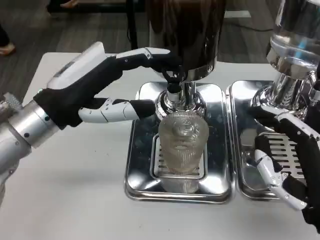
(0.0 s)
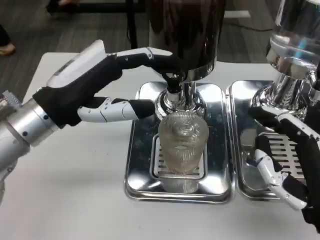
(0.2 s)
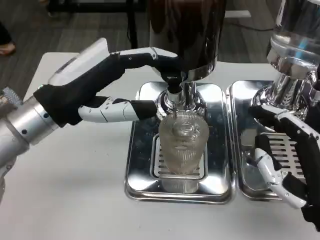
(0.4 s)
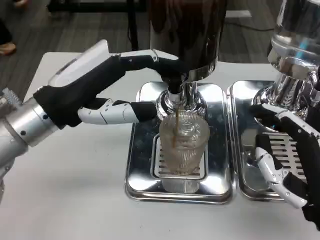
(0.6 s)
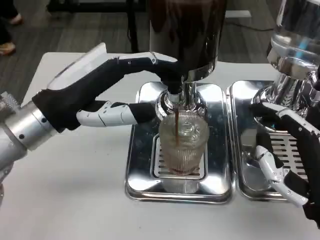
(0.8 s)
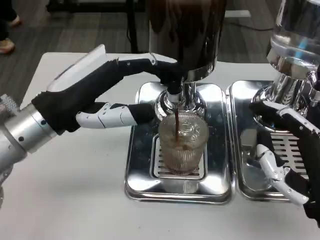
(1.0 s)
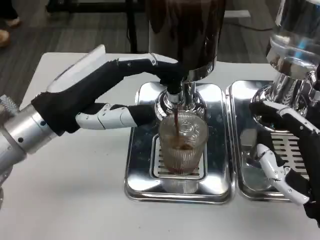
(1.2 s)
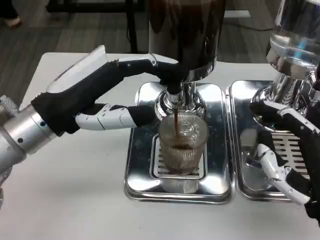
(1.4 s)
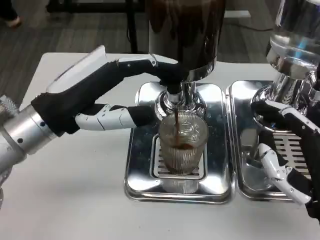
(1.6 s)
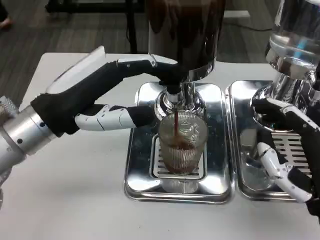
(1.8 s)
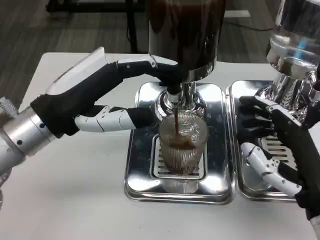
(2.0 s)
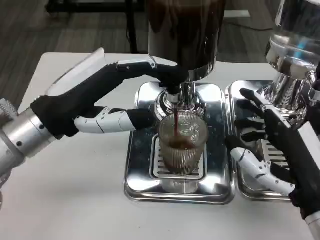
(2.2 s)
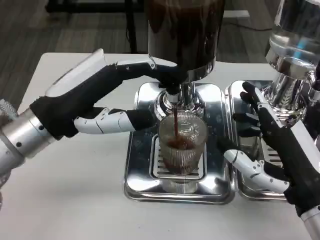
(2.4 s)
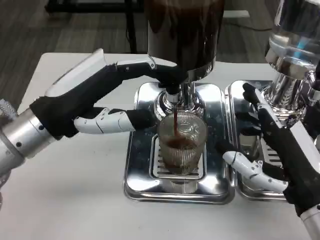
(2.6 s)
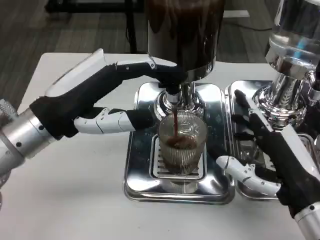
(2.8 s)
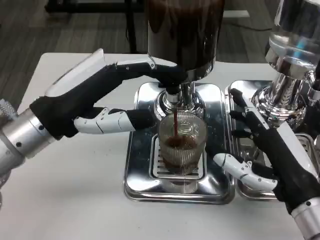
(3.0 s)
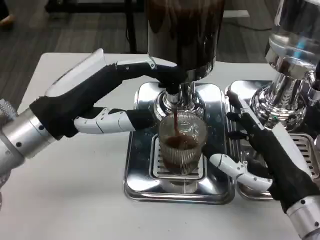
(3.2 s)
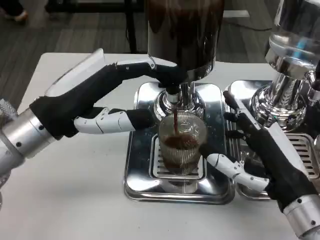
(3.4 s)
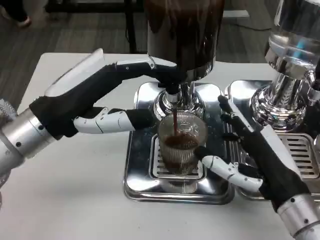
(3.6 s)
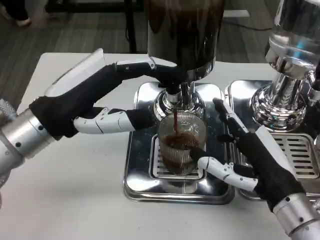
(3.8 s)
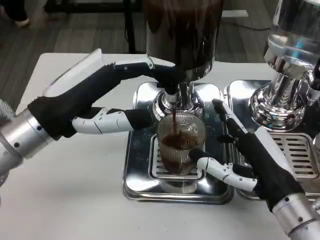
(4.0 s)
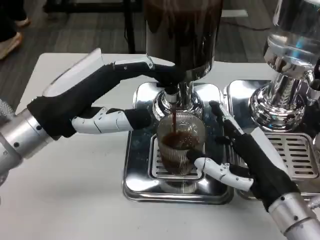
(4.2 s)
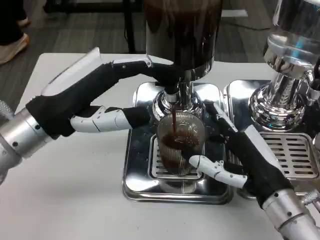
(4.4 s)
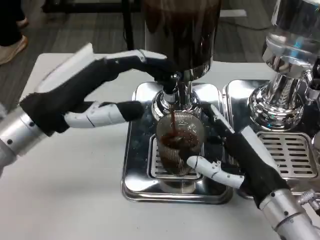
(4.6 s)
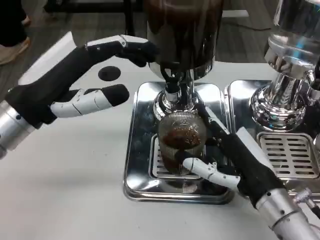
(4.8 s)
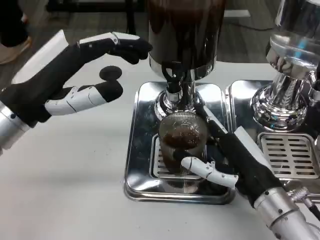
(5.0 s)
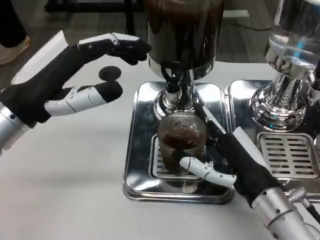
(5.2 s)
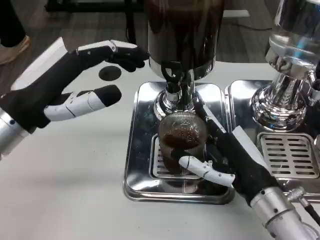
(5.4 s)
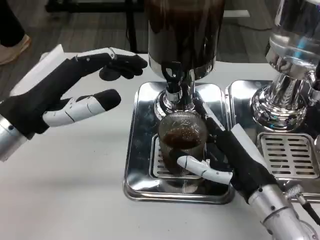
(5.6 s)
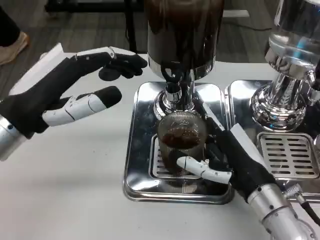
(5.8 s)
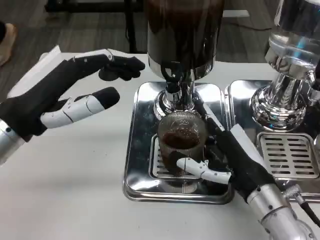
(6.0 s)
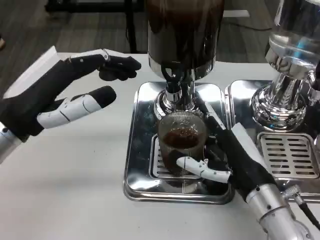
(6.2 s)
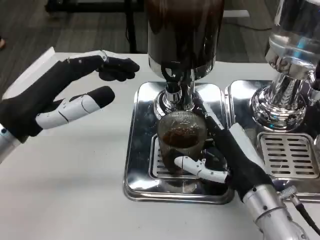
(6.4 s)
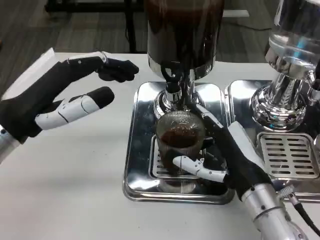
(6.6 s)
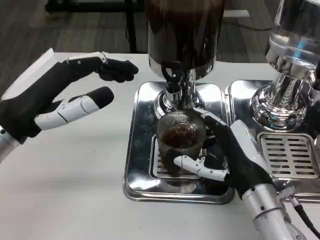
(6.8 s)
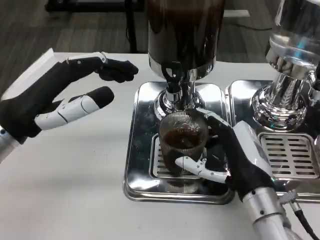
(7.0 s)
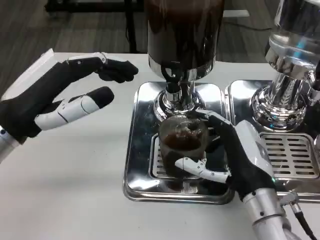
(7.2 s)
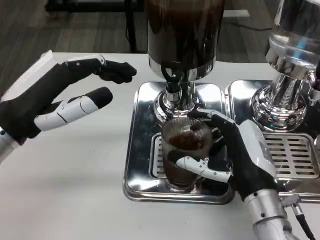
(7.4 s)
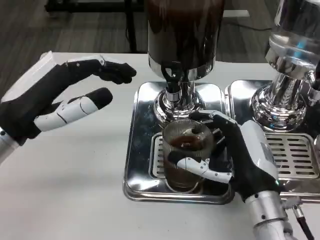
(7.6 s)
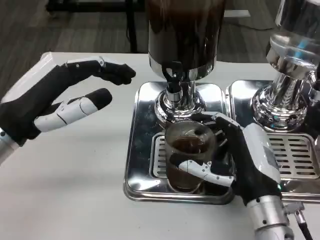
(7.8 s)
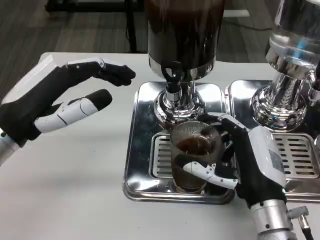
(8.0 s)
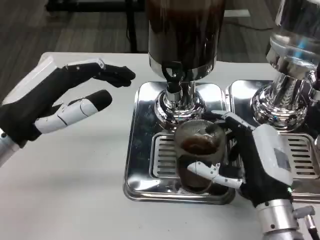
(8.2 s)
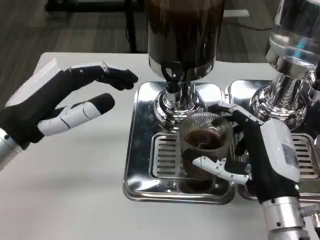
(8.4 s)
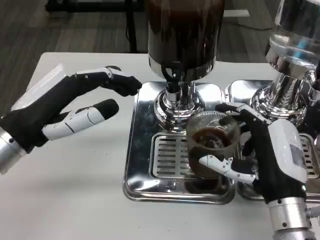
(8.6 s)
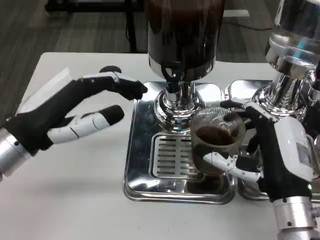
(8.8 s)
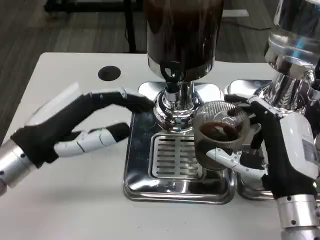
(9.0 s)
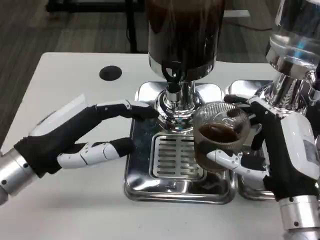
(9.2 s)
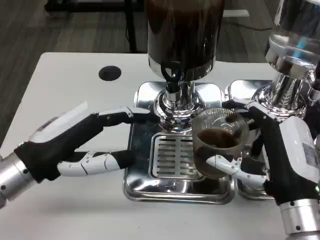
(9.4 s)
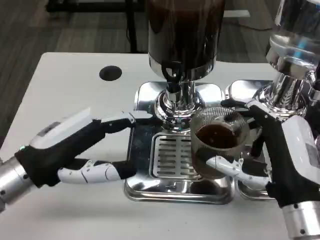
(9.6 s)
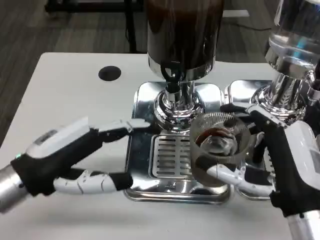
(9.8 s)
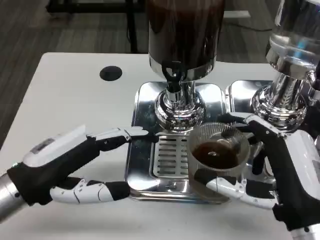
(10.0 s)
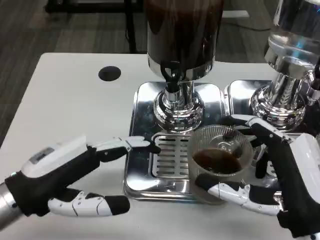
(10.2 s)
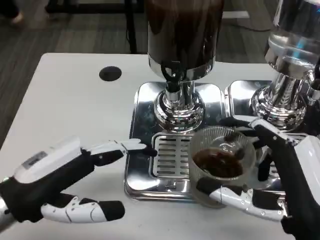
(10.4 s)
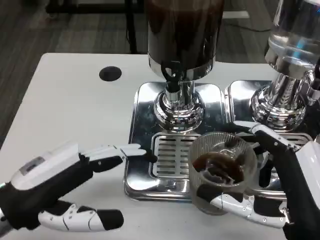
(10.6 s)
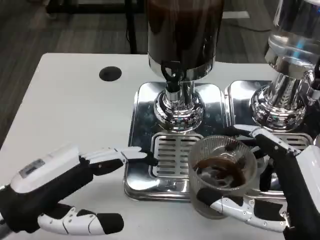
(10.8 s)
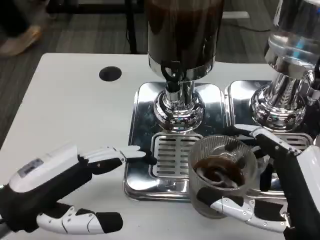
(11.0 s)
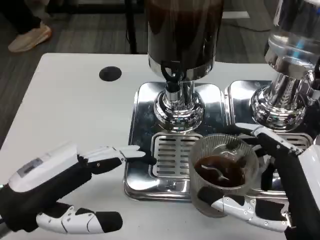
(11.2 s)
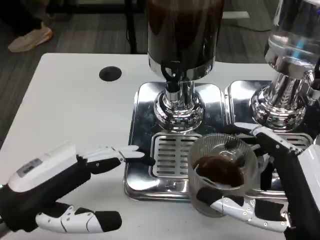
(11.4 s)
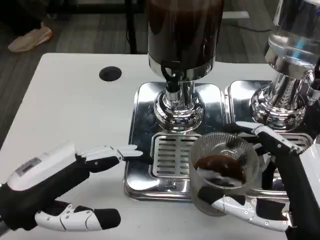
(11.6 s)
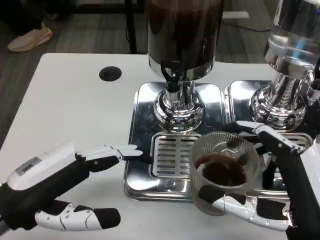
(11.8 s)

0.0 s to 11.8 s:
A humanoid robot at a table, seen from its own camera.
Task of the whole recording: Grasp the cup under the faucet to collect the drink, then remove the cup.
0.0 to 1.4 s: The hands stay close to where they were, moving slightly.
6.0 to 7.4 s: There are only small adjustments of the hands.
8.8 to 10.4 s: Both hands move backward, approximately 5 cm.
10.4 to 11.8 s: Neither hand changes place.

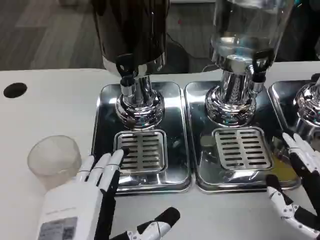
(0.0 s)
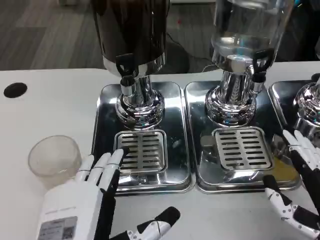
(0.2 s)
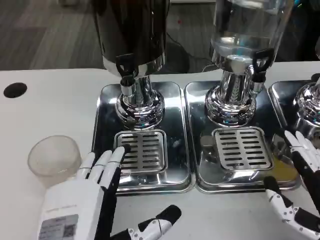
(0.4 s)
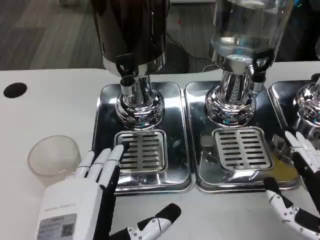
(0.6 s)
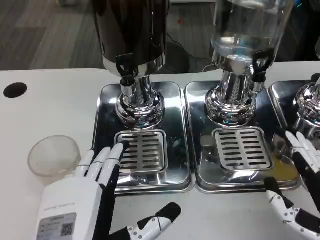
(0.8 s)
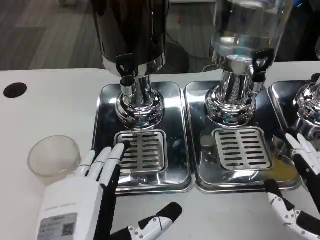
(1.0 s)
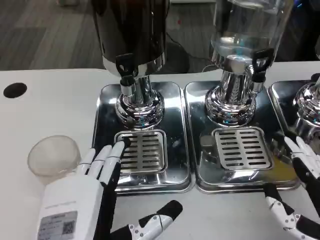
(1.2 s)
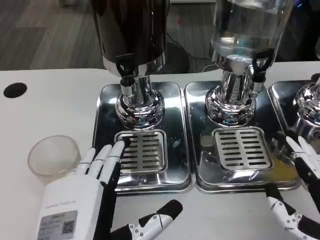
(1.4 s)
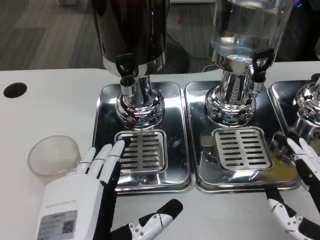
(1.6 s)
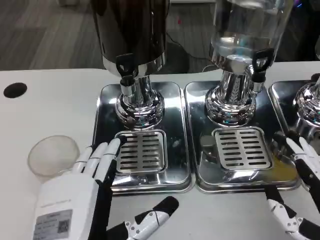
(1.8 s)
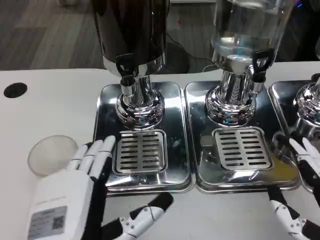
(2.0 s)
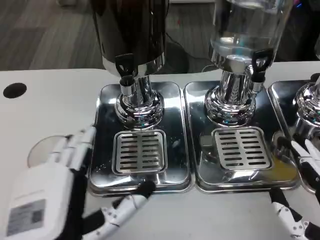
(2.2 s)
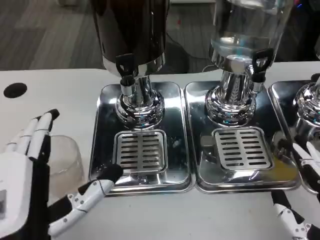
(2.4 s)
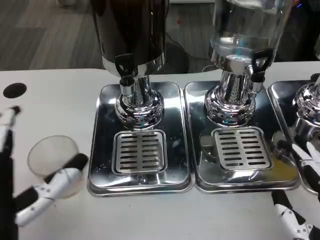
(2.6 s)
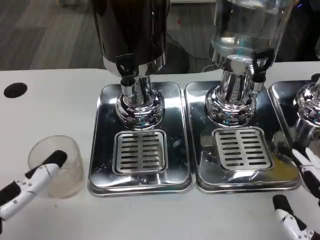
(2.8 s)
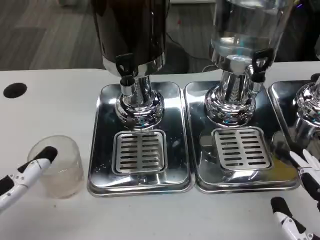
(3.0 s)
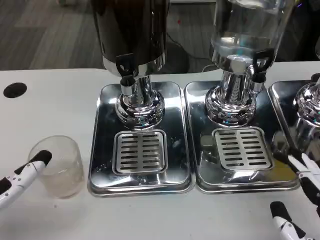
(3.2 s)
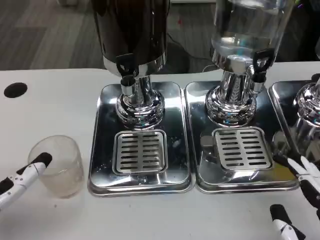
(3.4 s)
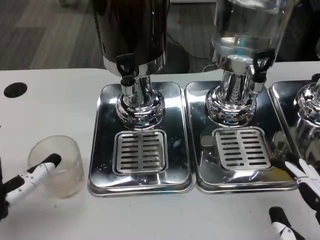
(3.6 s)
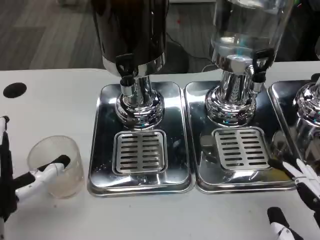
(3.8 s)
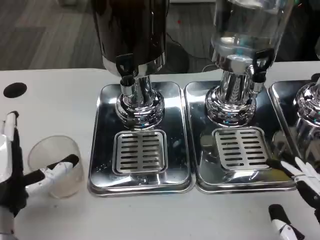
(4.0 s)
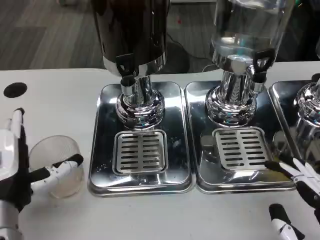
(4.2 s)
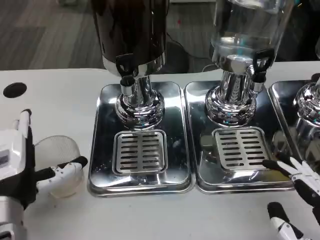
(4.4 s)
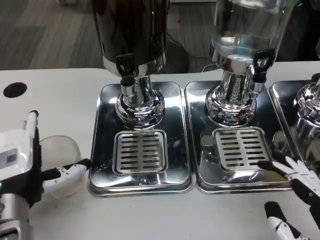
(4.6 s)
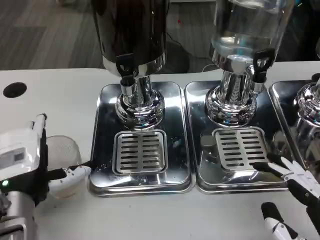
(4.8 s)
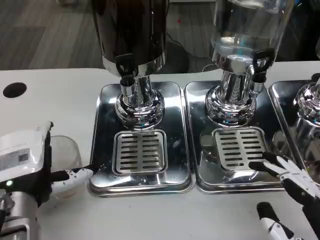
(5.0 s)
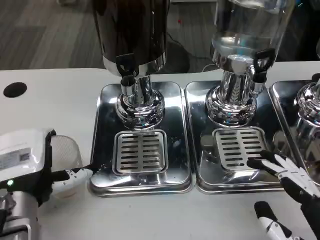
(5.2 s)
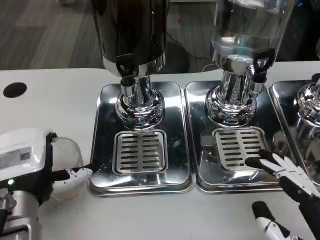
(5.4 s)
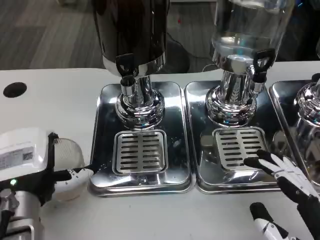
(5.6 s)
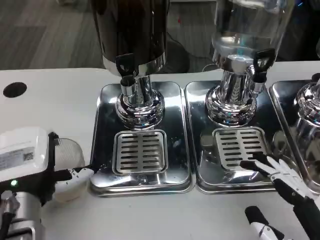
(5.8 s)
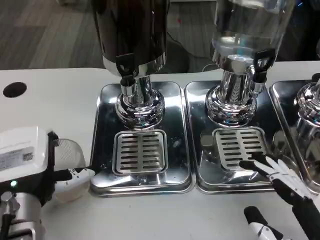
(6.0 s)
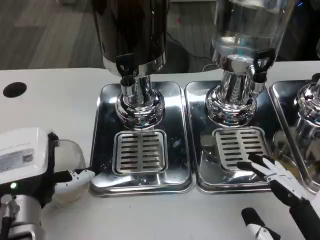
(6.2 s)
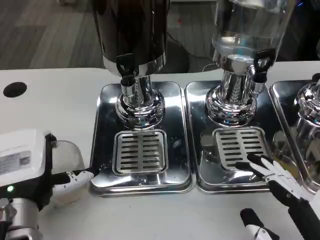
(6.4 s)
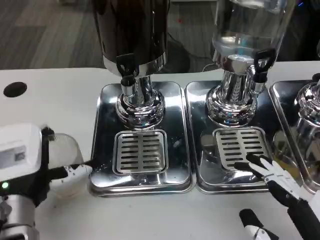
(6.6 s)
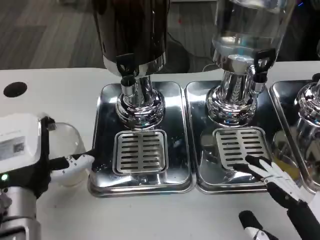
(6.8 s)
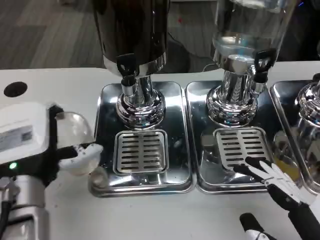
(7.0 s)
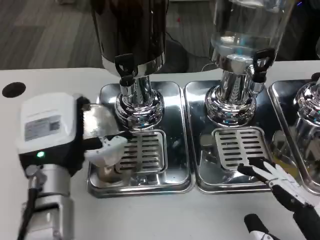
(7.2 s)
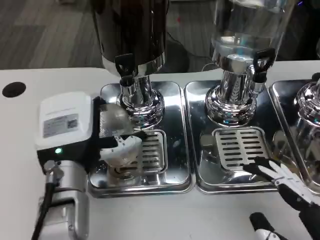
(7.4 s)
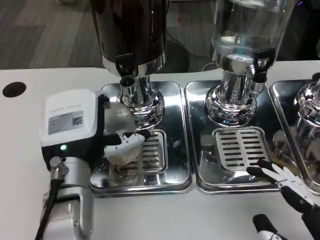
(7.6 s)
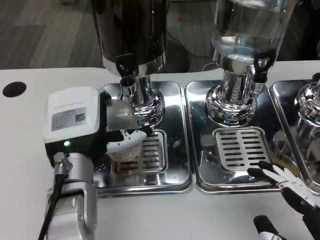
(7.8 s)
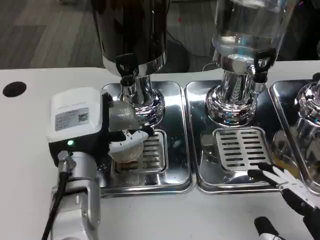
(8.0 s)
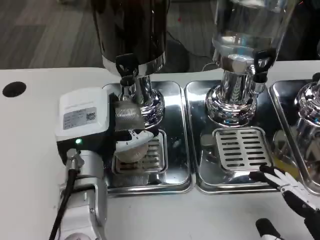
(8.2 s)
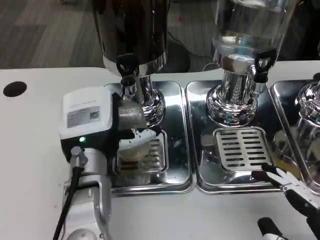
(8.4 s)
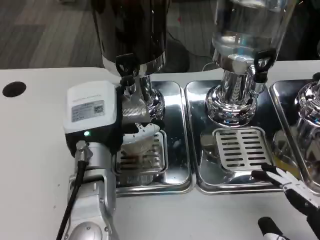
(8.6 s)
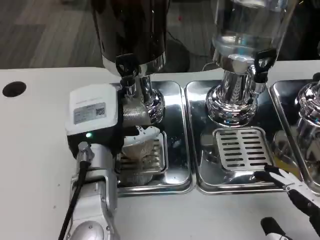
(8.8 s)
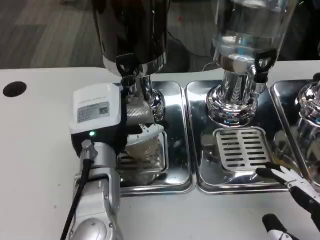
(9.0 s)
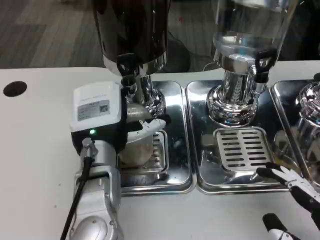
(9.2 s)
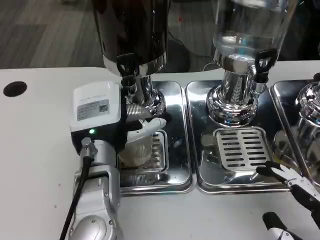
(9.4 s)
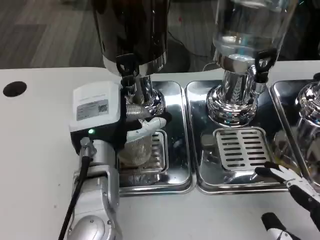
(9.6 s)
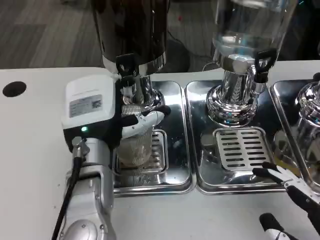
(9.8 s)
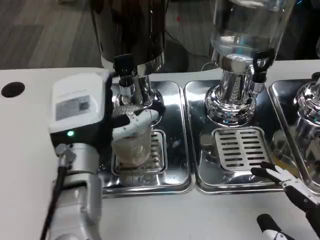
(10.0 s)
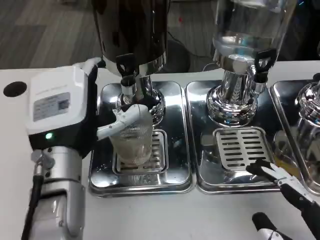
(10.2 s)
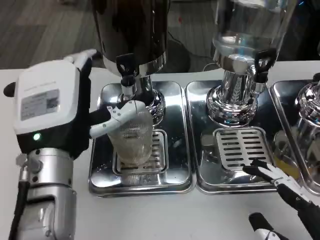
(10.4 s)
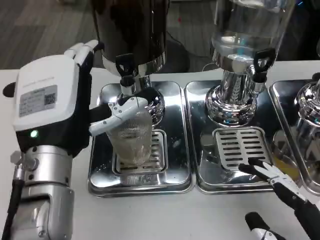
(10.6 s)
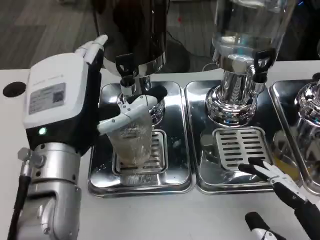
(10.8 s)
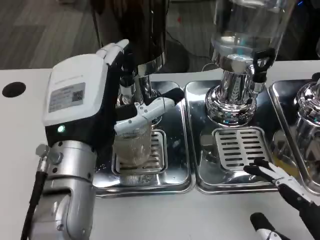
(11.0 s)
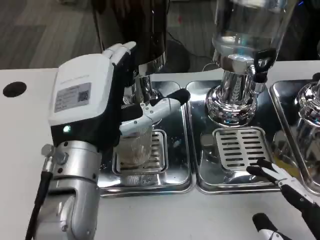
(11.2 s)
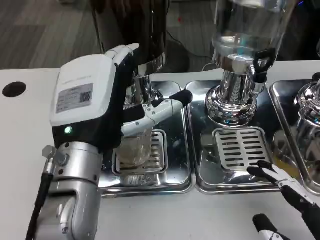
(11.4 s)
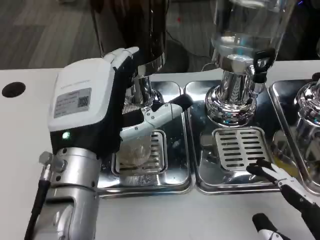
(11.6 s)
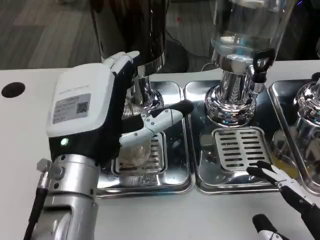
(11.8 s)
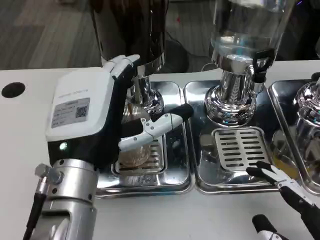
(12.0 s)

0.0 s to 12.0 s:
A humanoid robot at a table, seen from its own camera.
Task of the whole recording: Grasp the cup under the faucet to collect the drink, then remove the cup.
0.0 to 1.6 s: The hands make only small movements.
1.6 to 3.0 s: The left hand goes approximately 10 cm to the left.
3.0 to 4.4 s: The left hand shifts approximately 5 cm forward.
4.4 to 6.0 s: The hands move only a little.
6.0 to 7.6 s: The left hand travels to the right by approximately 5 cm.
9.0 to 10.4 s: The left hand travels backward and upward by roughly 10 cm.
